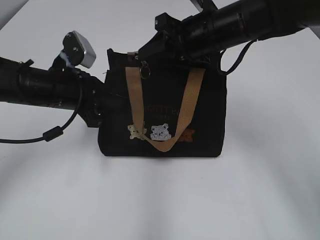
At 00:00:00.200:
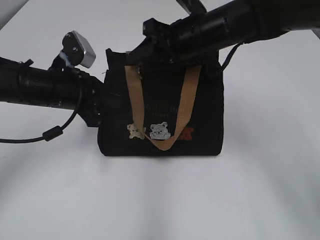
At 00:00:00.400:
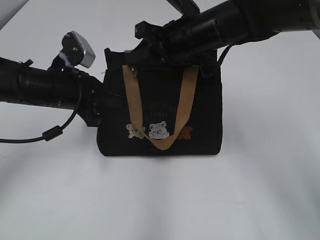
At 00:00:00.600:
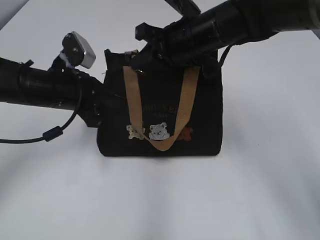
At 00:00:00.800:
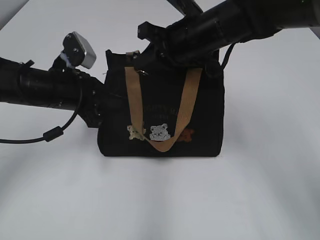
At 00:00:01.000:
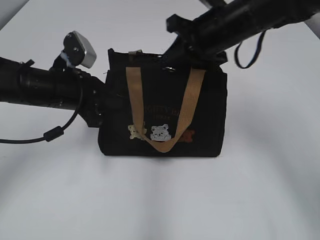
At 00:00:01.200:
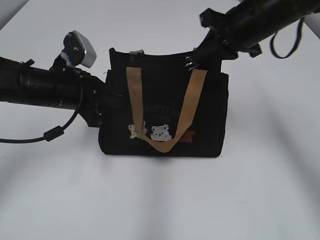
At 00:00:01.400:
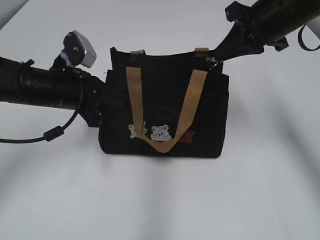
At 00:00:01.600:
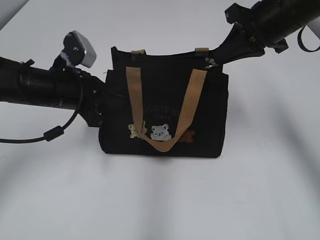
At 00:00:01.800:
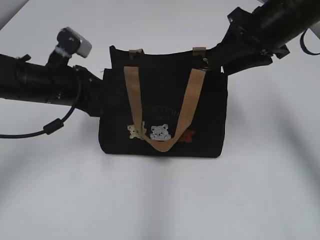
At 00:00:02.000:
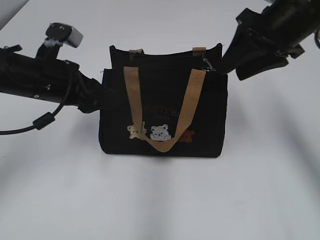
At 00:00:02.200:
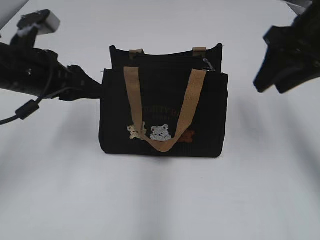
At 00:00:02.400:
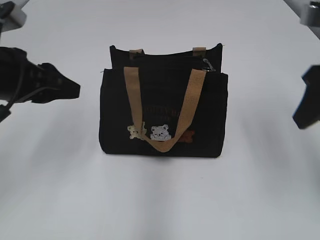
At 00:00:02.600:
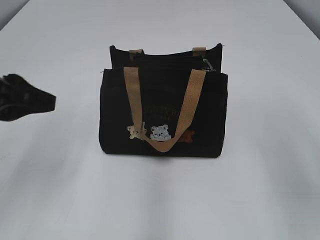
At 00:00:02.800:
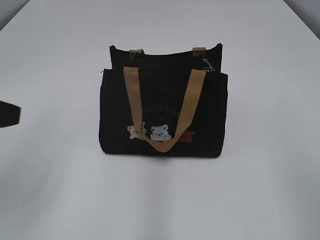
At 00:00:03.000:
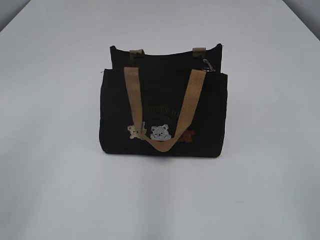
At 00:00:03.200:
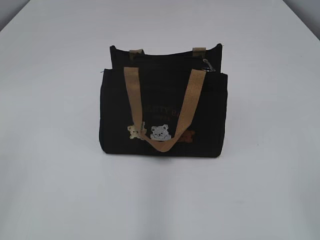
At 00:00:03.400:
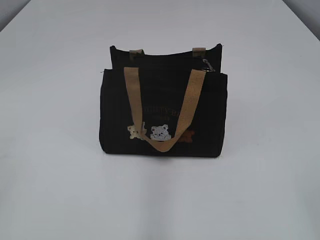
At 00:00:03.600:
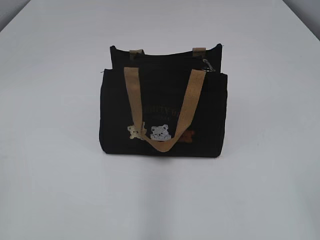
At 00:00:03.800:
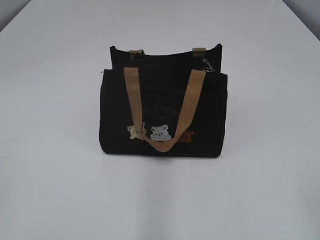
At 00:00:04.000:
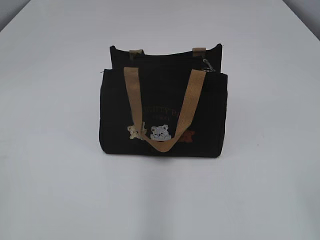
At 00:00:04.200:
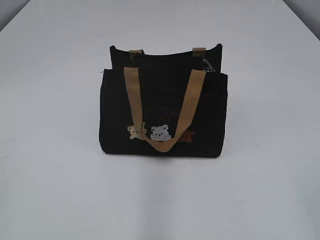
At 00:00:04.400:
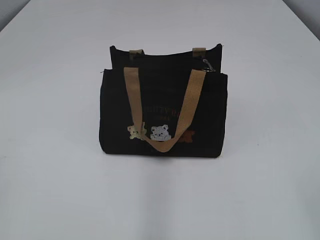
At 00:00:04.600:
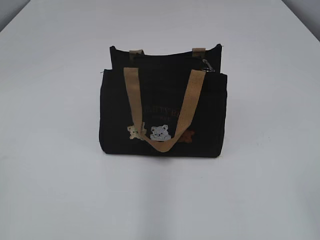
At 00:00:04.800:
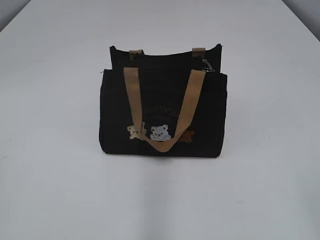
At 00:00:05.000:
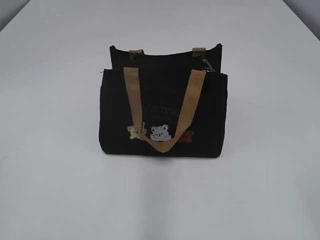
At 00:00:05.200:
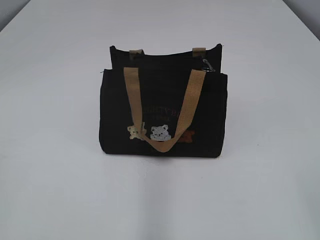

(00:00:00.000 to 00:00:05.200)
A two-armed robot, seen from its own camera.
Step, 00:00:02.000 - 00:00:02.200: Hold the bag with your left hand.
00:00:00.000 - 00:00:01.800: The right gripper moves to the right, approximately 10 cm, and closes, then opens again.
00:00:01.800 - 00:00:03.400: The right gripper heads backward, covering roughly 35 cm. The left gripper shifts roughly 35 cm backward, to the left and upward, and opens and closes again.

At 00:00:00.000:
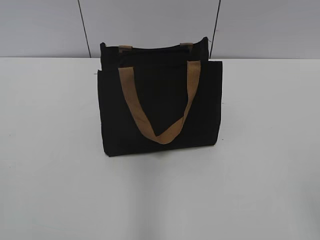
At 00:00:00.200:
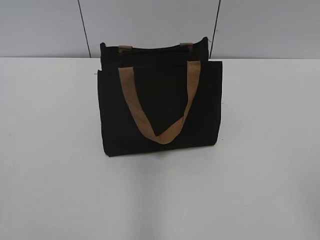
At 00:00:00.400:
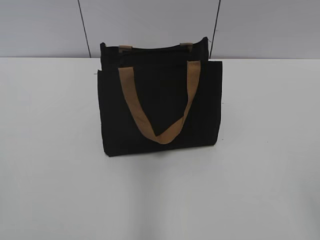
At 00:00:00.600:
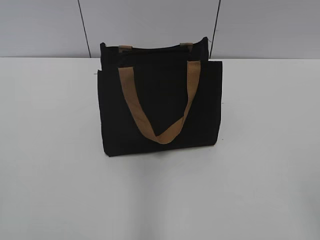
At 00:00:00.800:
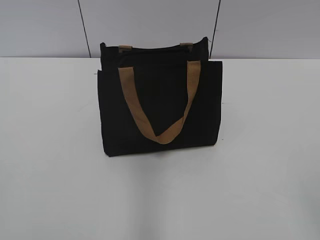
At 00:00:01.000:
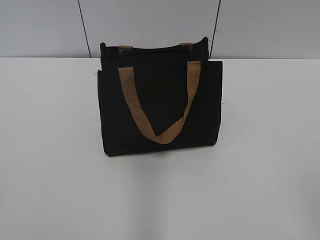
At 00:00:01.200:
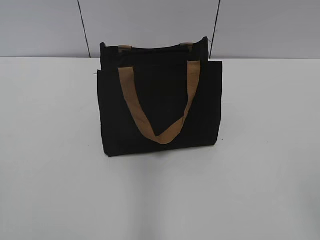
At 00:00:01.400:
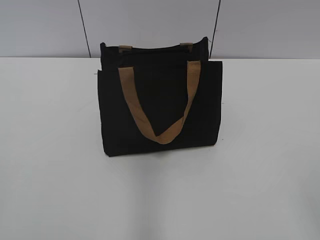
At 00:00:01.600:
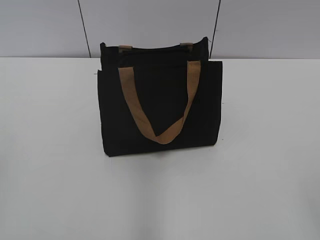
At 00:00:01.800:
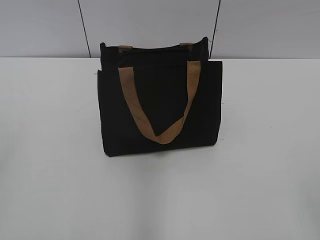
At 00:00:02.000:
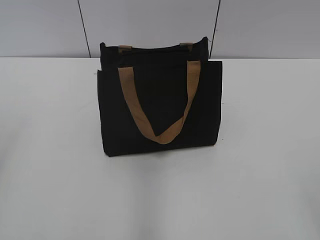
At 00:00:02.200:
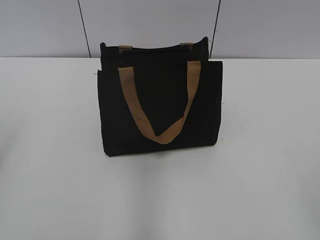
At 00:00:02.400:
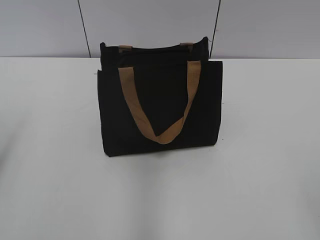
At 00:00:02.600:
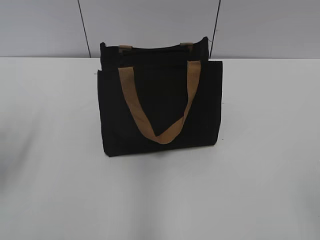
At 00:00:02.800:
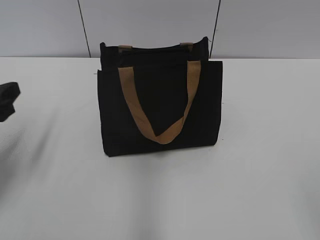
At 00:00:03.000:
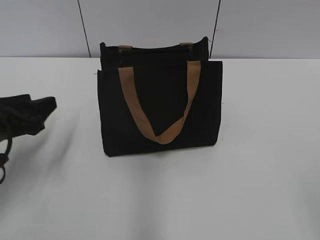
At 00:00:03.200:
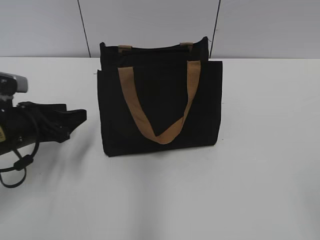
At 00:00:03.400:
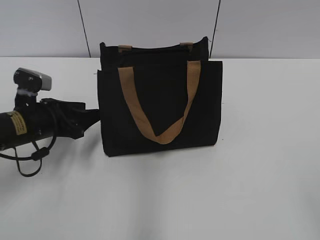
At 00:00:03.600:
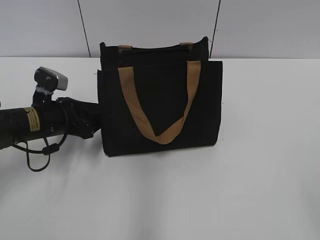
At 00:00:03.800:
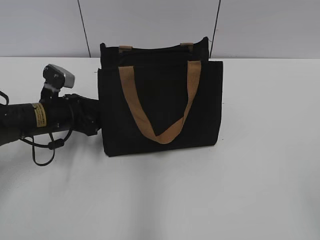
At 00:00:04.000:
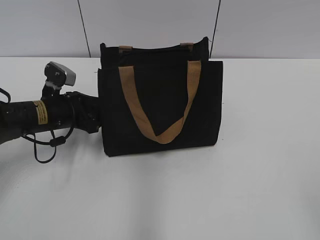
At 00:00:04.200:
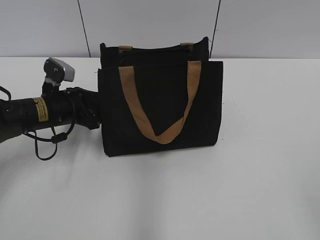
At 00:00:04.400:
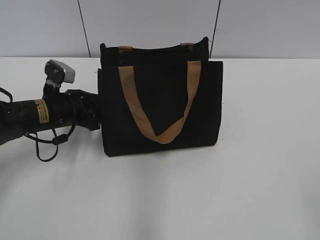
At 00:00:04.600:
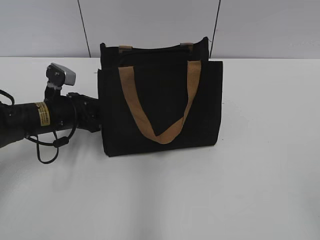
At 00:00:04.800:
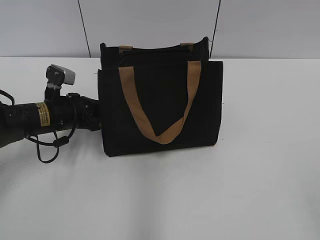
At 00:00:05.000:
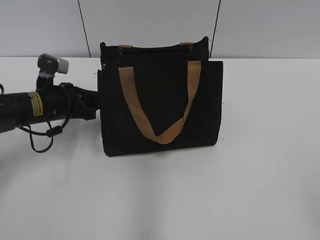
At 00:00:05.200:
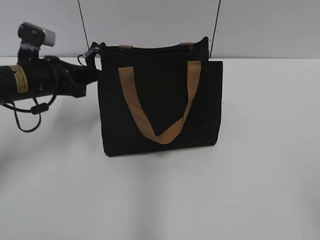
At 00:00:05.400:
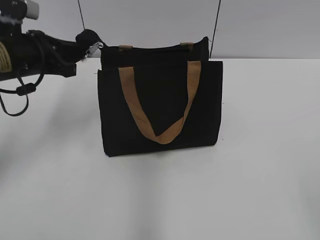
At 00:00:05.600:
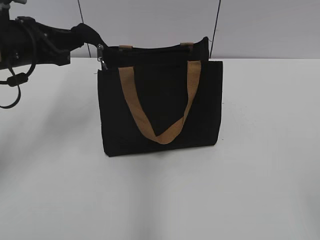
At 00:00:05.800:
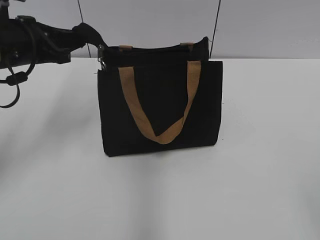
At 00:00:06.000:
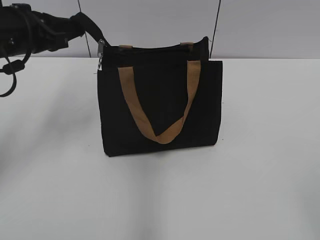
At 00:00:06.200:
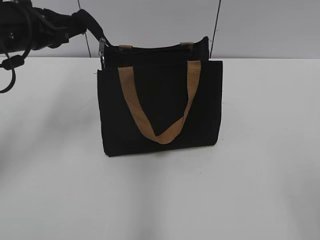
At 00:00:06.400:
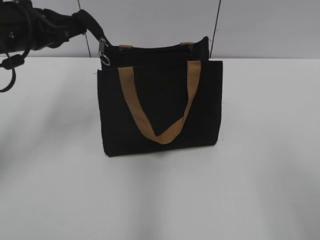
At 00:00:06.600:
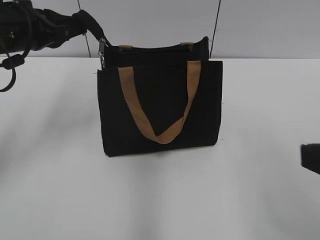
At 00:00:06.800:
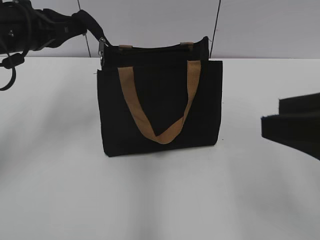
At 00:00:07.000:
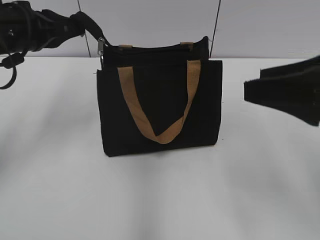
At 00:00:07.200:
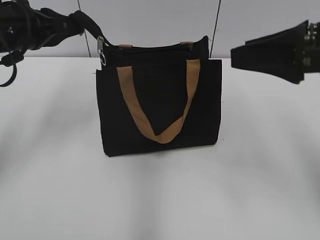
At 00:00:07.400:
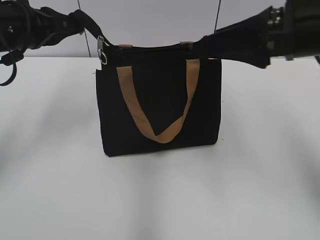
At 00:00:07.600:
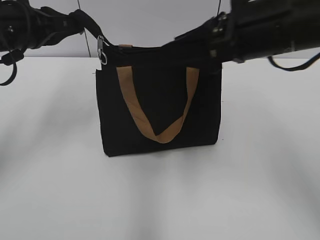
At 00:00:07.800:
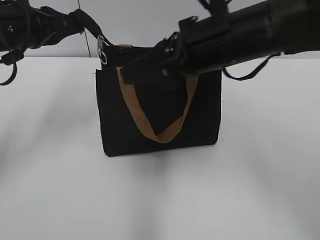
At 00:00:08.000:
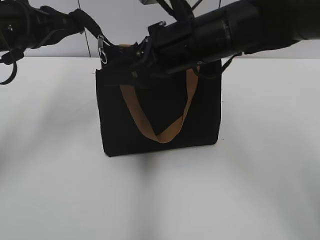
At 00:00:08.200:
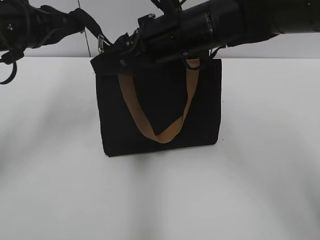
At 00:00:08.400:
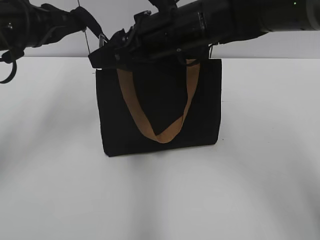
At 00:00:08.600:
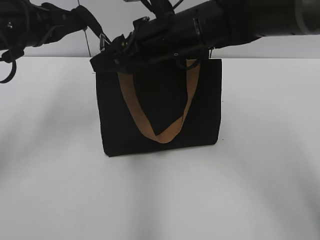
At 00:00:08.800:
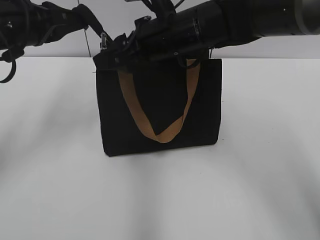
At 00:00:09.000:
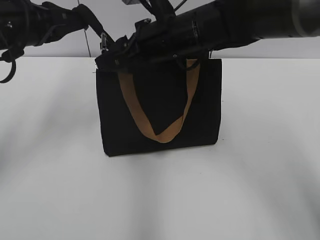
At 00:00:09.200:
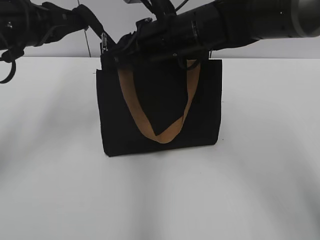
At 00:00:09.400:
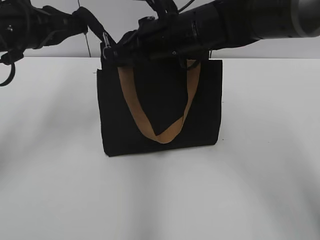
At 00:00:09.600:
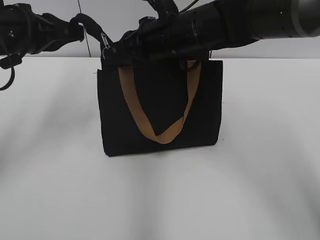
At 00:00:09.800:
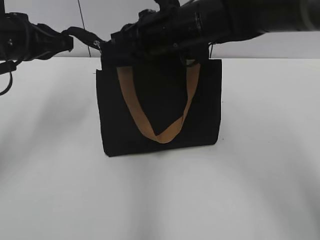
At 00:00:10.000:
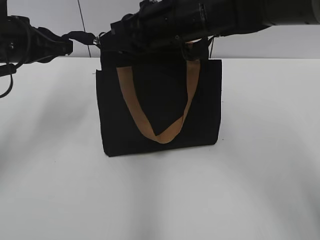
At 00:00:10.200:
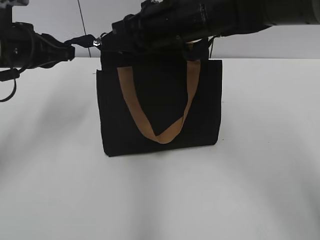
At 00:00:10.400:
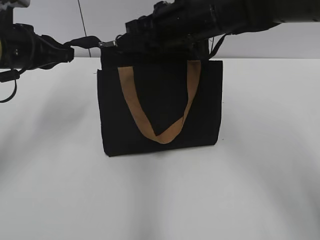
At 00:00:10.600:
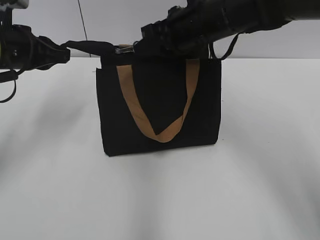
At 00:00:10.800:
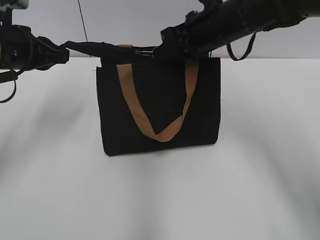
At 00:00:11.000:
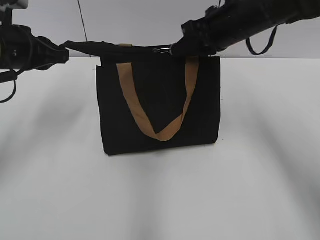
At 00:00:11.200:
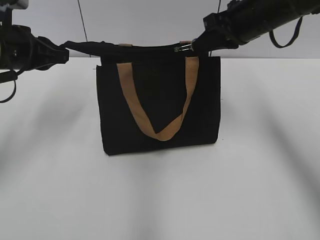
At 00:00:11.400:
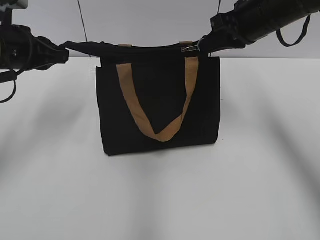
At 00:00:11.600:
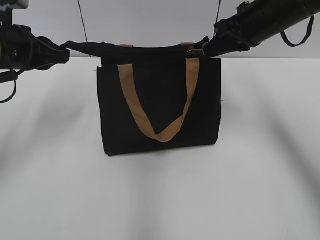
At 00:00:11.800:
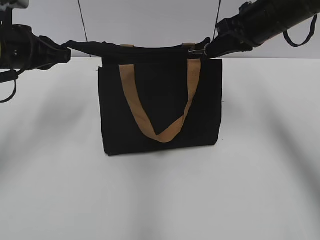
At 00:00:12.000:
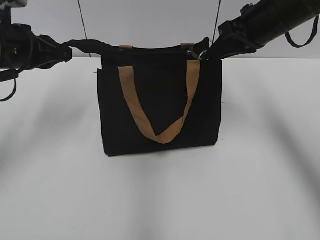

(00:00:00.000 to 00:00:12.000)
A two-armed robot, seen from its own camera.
Step, 00:00:00.000 - 00:00:12.000: Zip up the bag with your right hand.
00:00:01.600 - 00:00:03.000: The left gripper heads forward and downward, covering about 25 cm.
00:00:03.000 - 00:00:04.400: The left gripper travels forward, to the right and downward by about 15 cm.
00:00:04.400 - 00:00:06.000: The left gripper travels upward by approximately 15 cm, and closes its fingers.
00:00:06.000 - 00:00:07.600: The right gripper moves forward and to the left, about 30 cm.
00:00:07.600 - 00:00:09.000: The right gripper travels to the left, forward and downward by roughly 15 cm.
00:00:09.000 - 00:00:10.400: The right gripper closes its fingers.
00:00:10.400 - 00:00:12.000: The right gripper moves to the right, some 15 cm.

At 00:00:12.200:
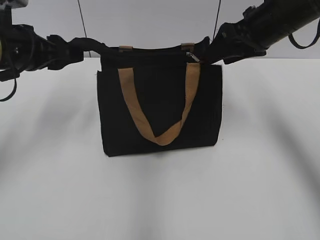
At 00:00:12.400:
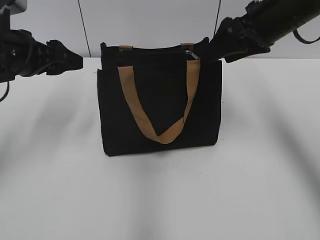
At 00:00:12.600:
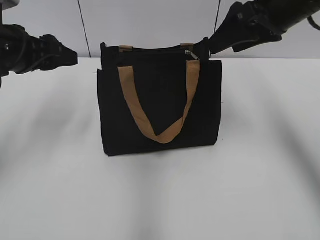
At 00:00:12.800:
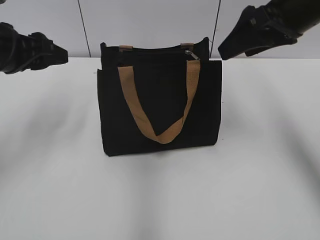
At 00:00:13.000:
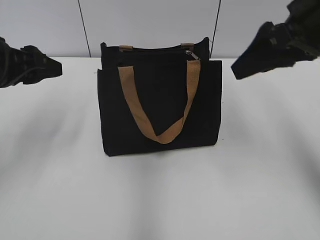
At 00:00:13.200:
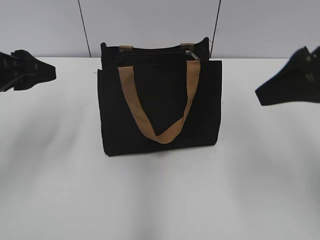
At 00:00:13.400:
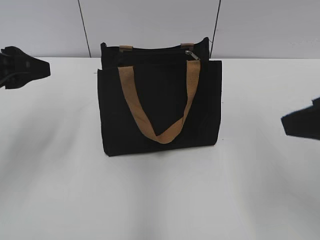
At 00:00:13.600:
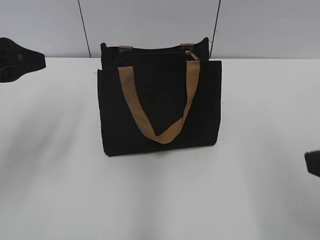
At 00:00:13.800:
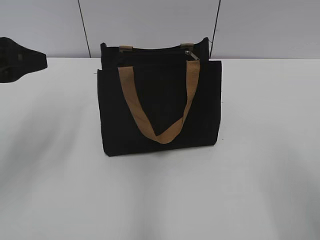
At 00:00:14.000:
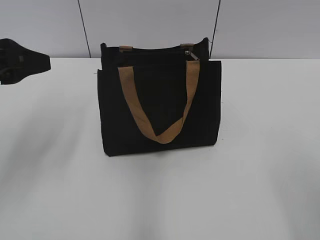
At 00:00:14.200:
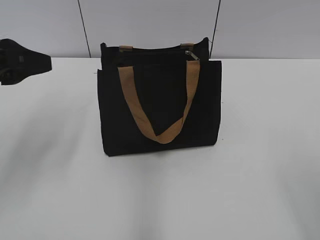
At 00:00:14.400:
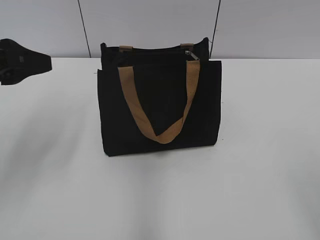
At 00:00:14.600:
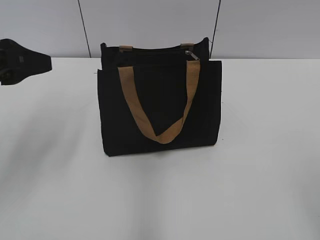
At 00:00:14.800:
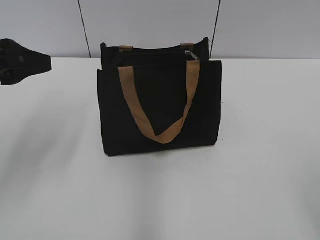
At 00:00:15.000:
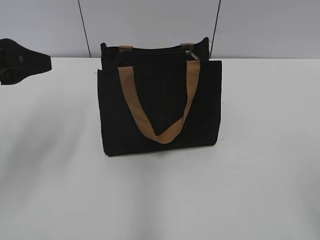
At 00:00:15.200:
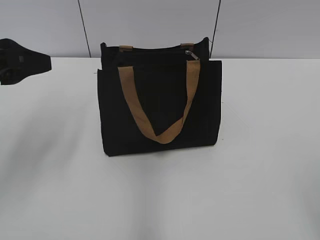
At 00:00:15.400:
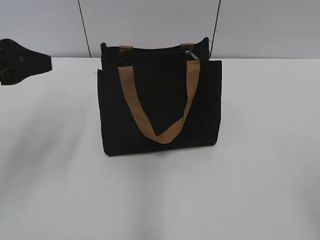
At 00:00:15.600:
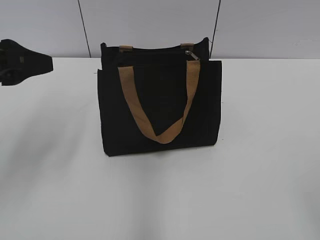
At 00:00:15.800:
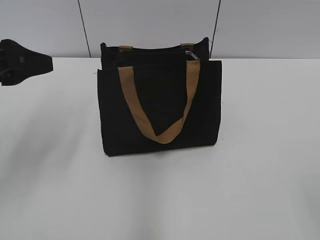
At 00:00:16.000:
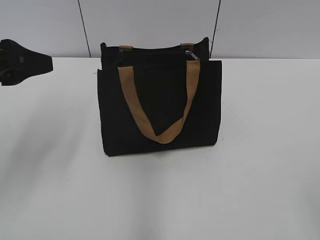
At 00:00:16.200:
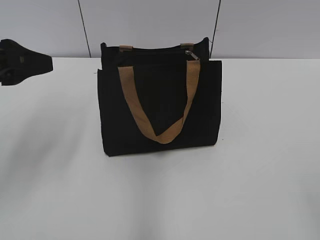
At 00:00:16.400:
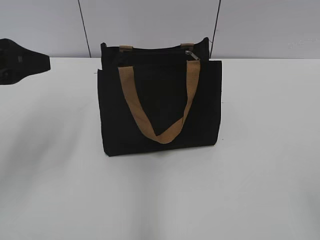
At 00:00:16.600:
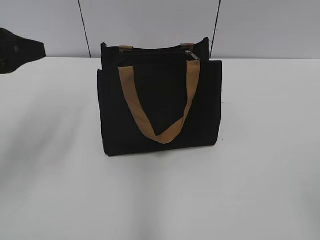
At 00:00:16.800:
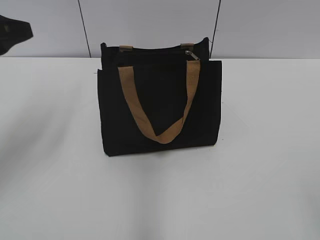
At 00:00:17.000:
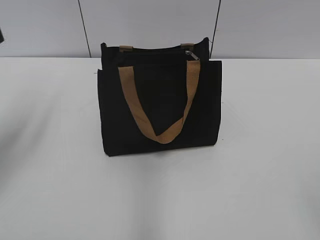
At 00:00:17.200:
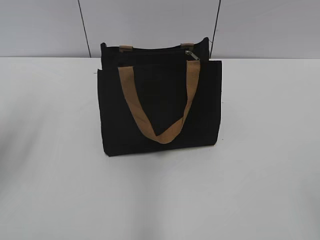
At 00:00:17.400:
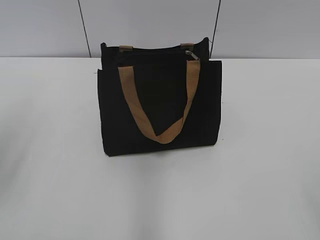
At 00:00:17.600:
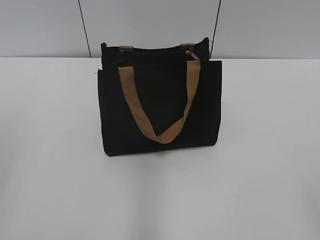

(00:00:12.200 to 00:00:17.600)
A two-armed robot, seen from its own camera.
00:00:12.200 - 00:00:13.600: The left gripper travels backward by approximately 10 cm. Meanwhile the right gripper moves backward, about 25 cm.
00:00:13.600 - 00:00:15.000: The right gripper moves backward, about 10 cm.
00:00:16.200 - 00:00:17.600: The left gripper goes about 10 cm backward and to the left.
